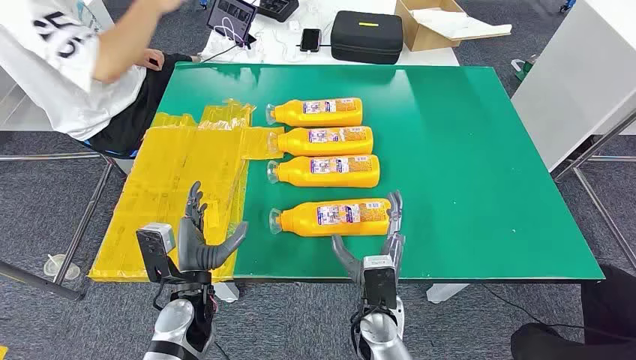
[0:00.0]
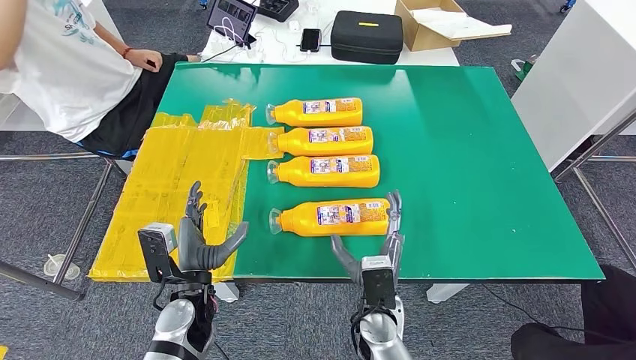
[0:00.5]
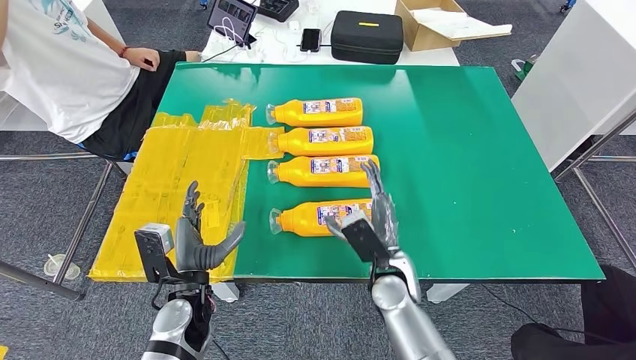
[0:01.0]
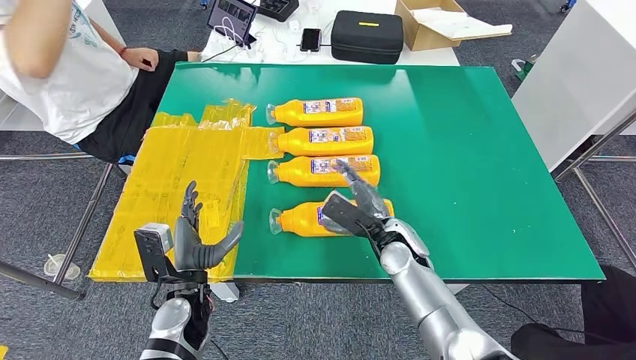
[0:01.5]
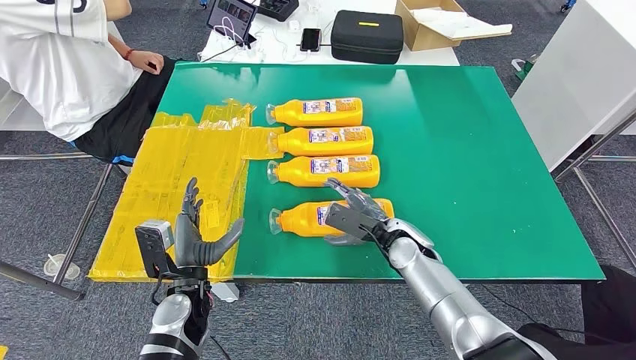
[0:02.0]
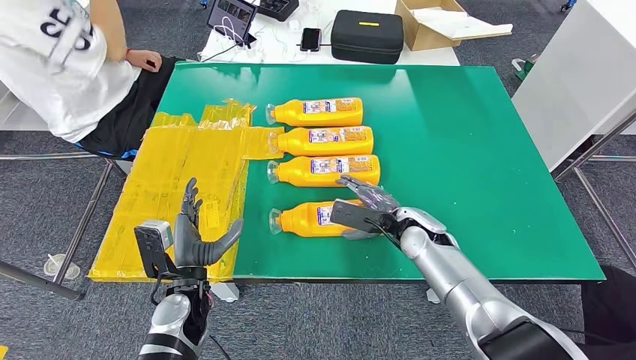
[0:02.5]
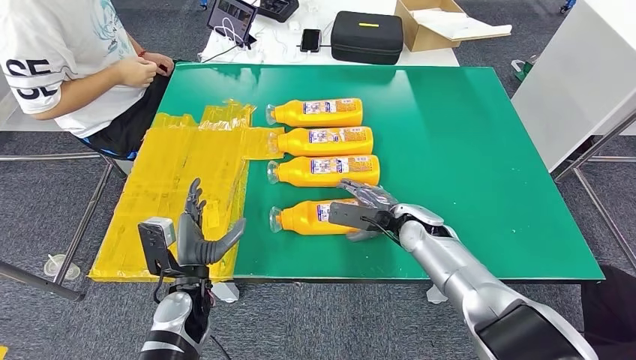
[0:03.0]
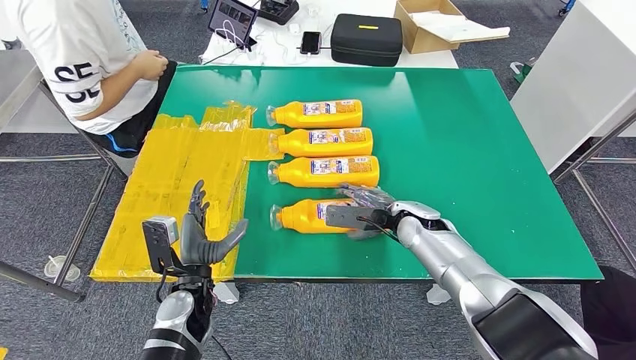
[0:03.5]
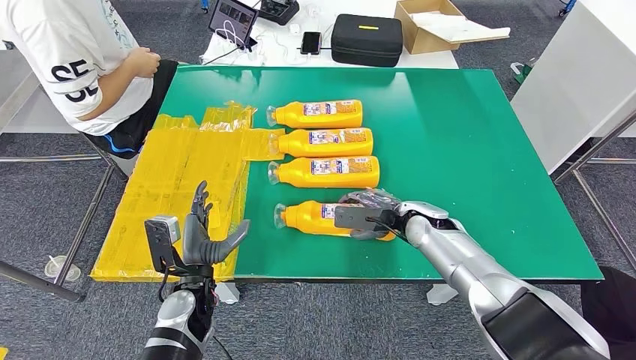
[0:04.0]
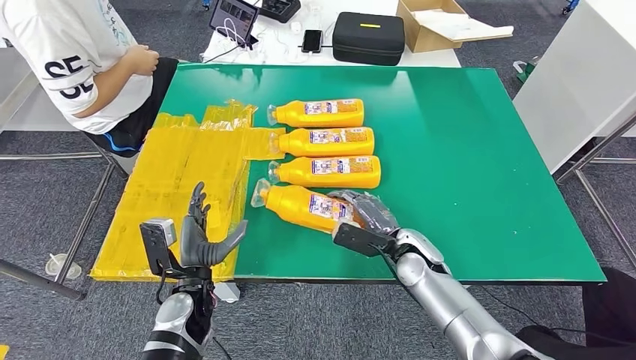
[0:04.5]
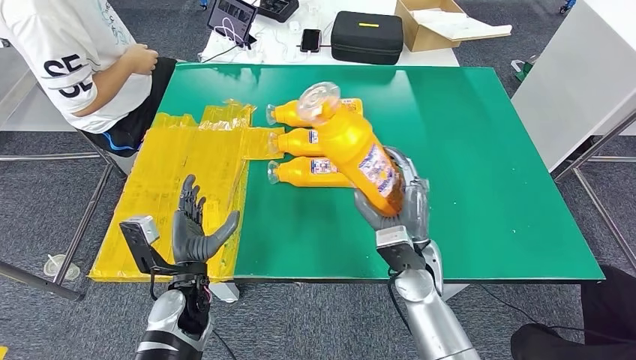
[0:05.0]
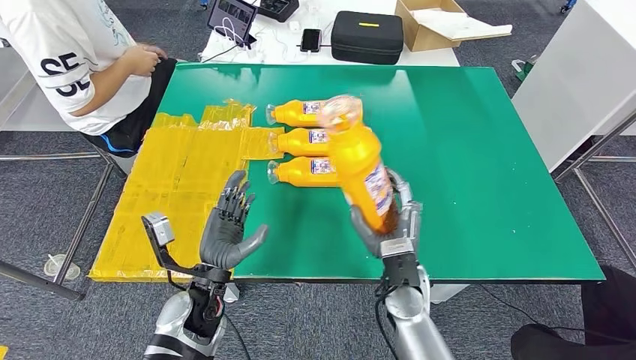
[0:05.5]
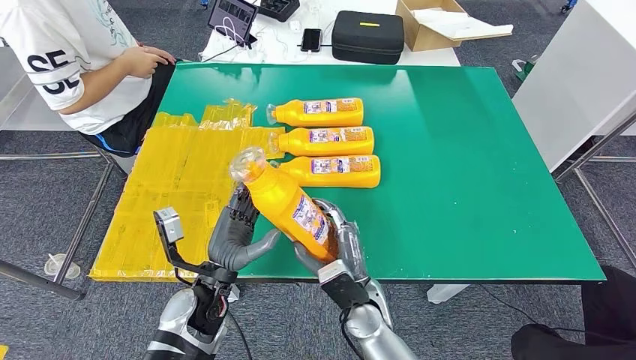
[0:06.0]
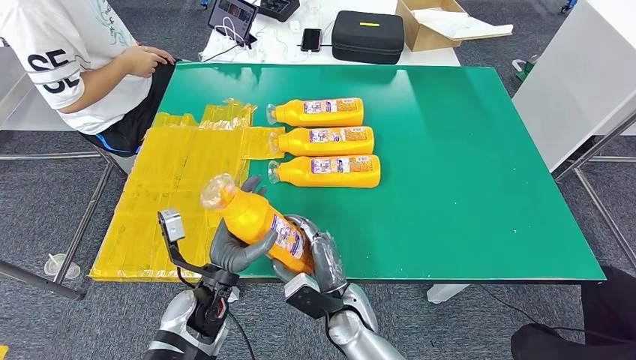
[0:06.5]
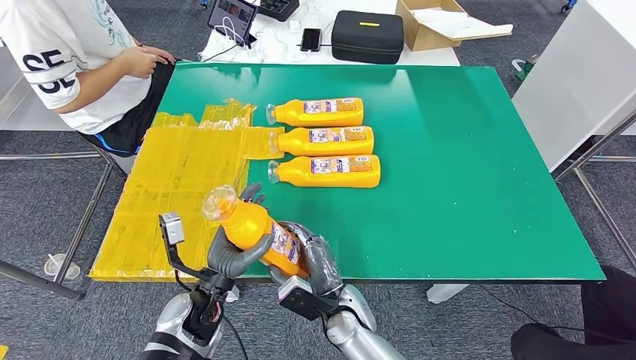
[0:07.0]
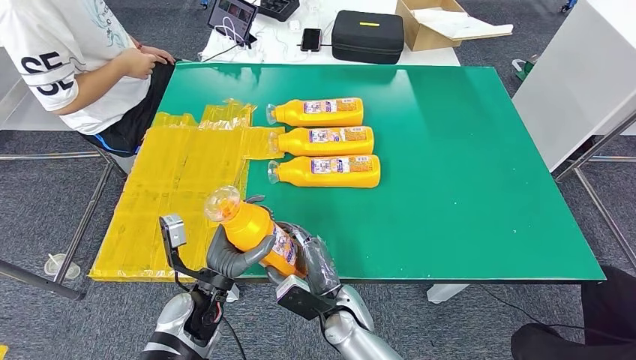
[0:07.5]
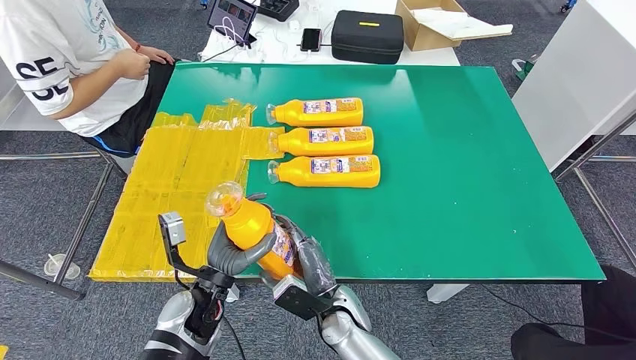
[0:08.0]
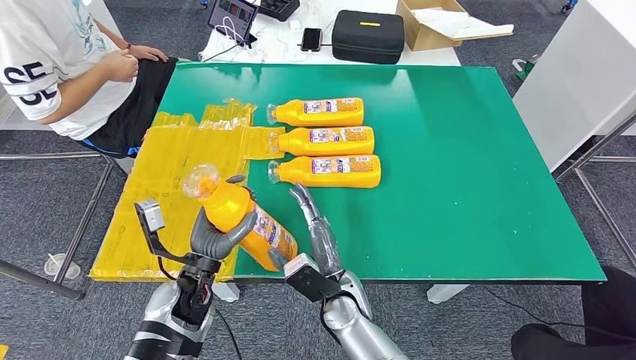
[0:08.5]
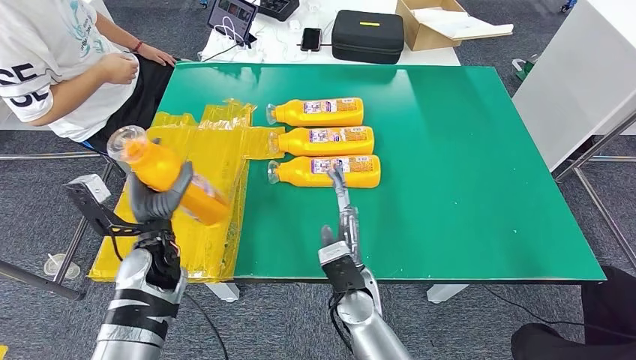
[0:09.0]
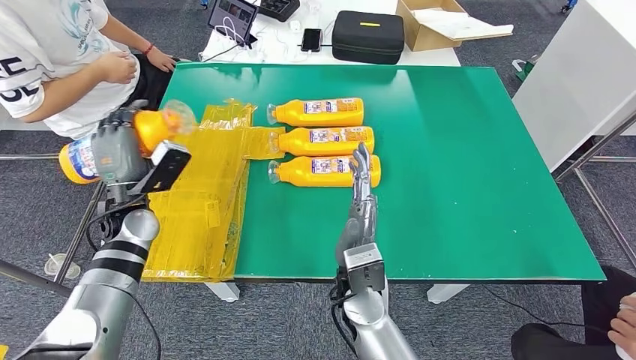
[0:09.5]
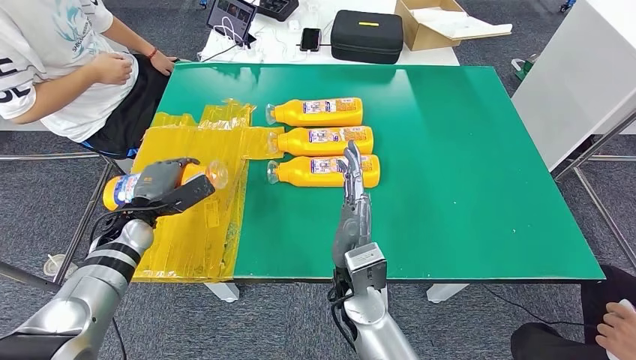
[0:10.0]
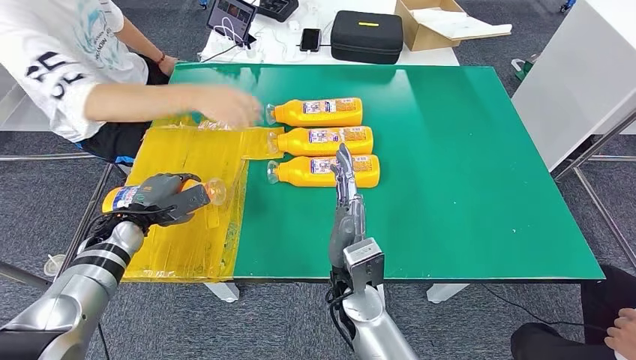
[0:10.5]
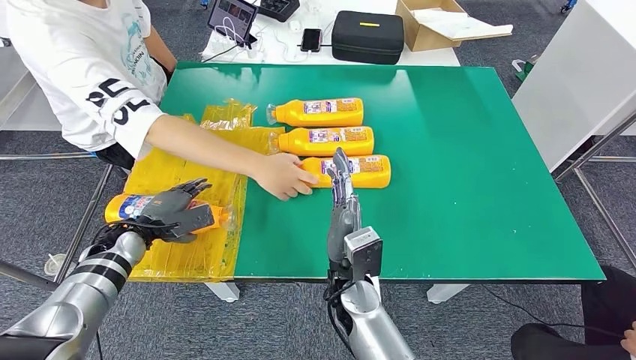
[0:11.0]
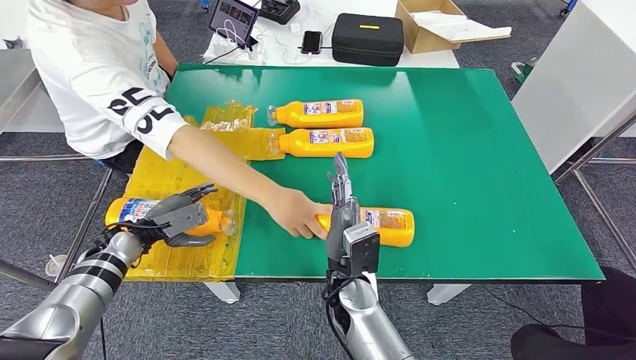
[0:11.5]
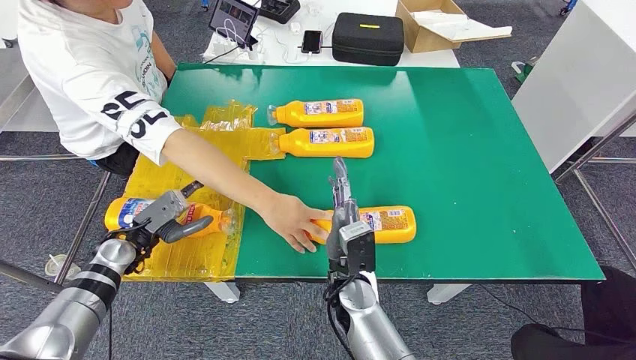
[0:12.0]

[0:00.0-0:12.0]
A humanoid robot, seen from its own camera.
Step, 0:00.0 to 0:06.0: Take the fast-moving consumer goods bottle from the table.
Step, 0:06.5 to 0:10.0: Flip the fast-moving consumer goods bottle to the front side.
0:06.0 to 0:08.0: The hands stay close to where they were, moving slightly.

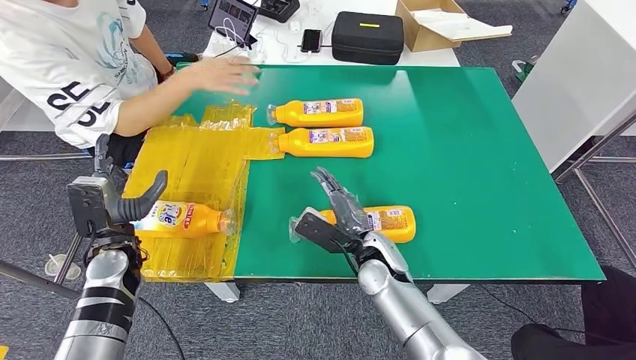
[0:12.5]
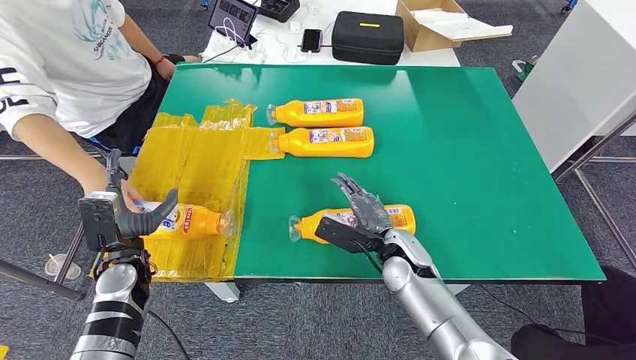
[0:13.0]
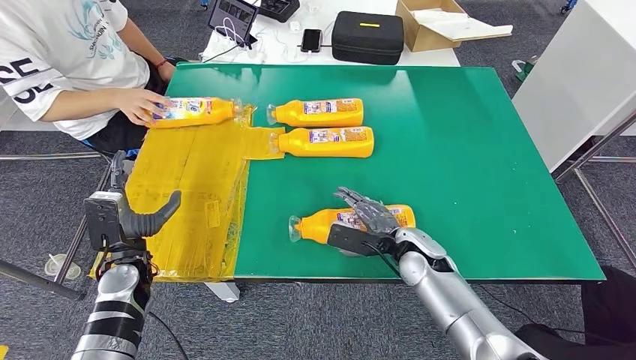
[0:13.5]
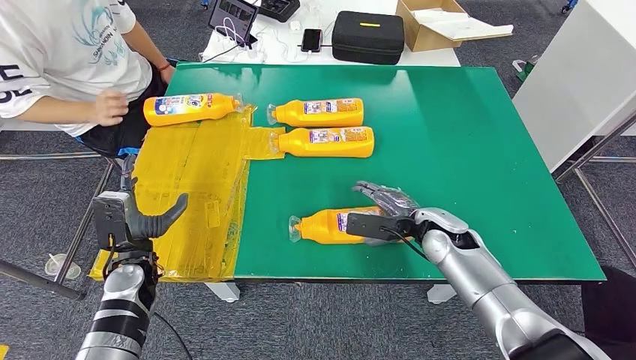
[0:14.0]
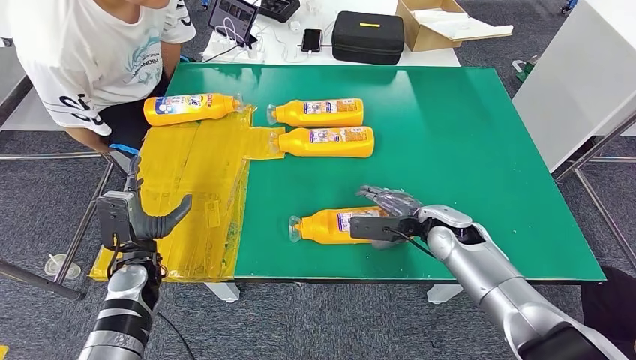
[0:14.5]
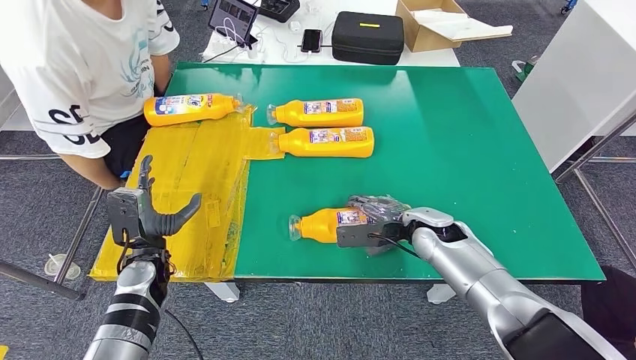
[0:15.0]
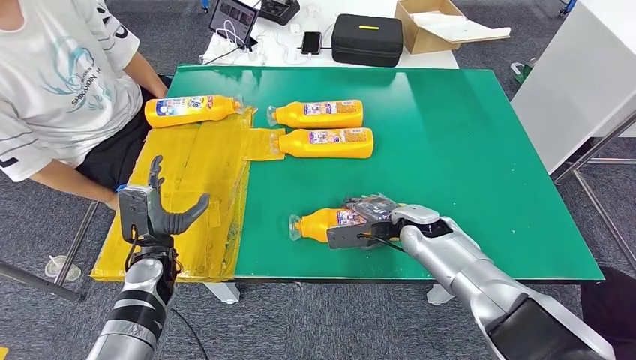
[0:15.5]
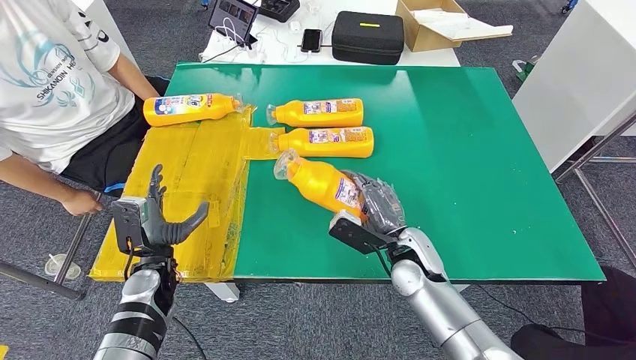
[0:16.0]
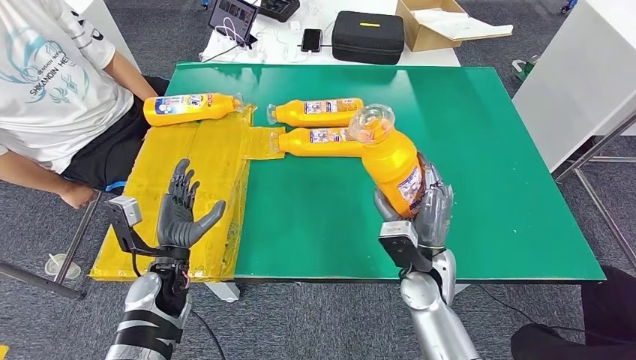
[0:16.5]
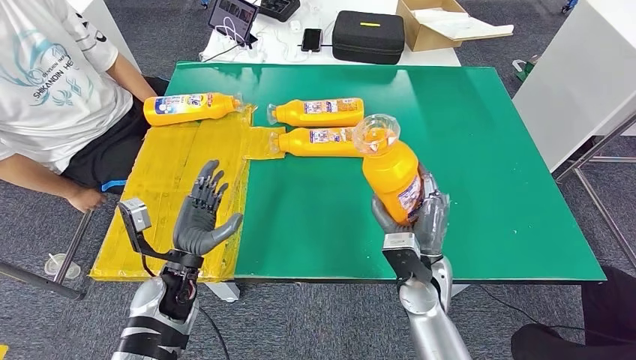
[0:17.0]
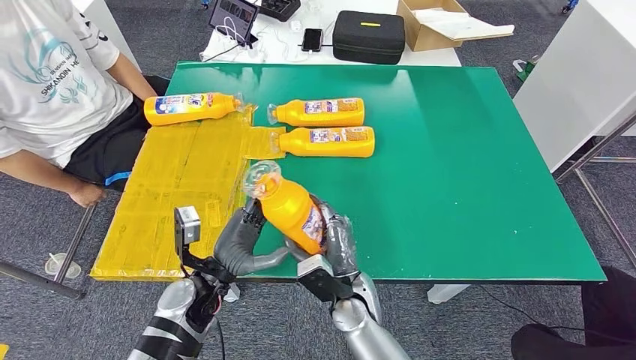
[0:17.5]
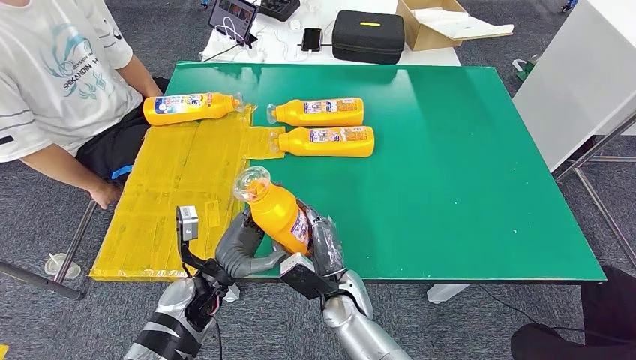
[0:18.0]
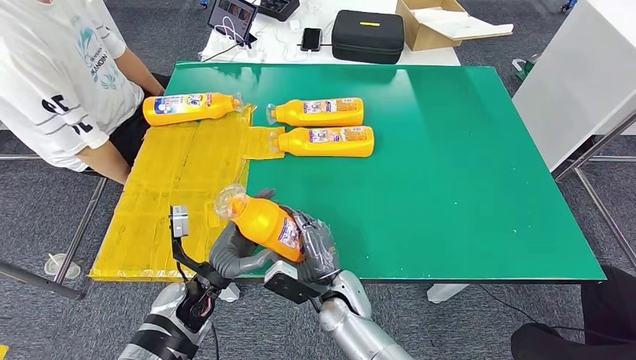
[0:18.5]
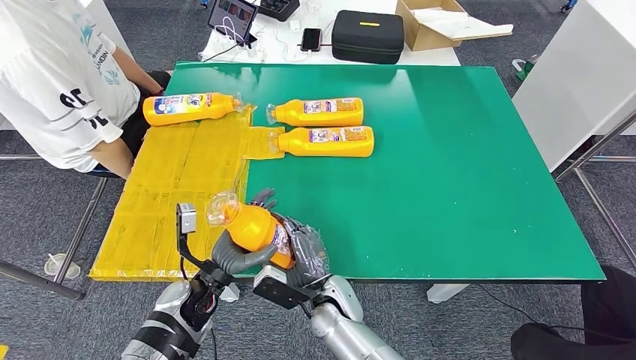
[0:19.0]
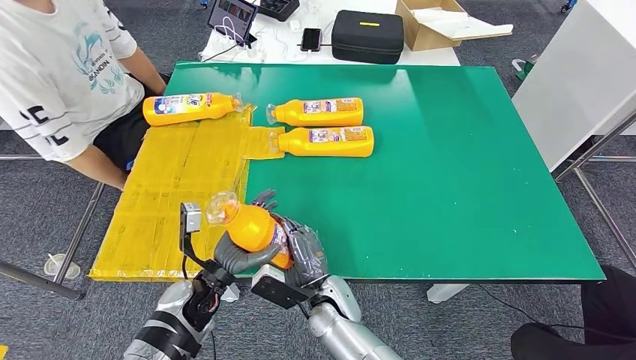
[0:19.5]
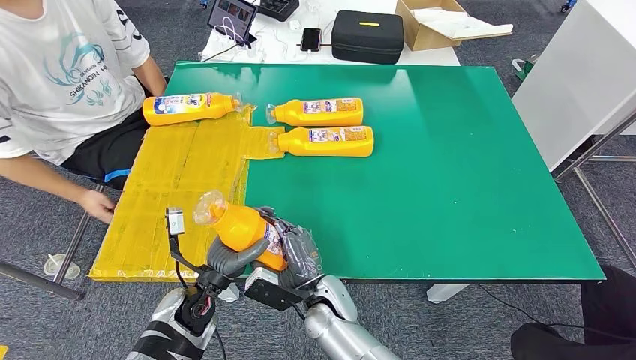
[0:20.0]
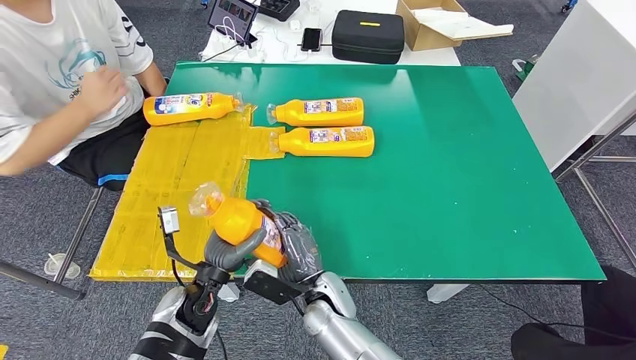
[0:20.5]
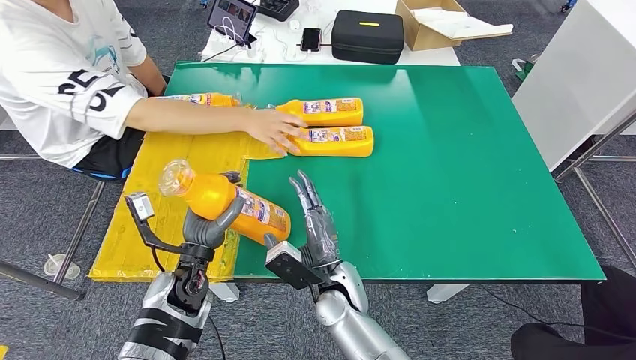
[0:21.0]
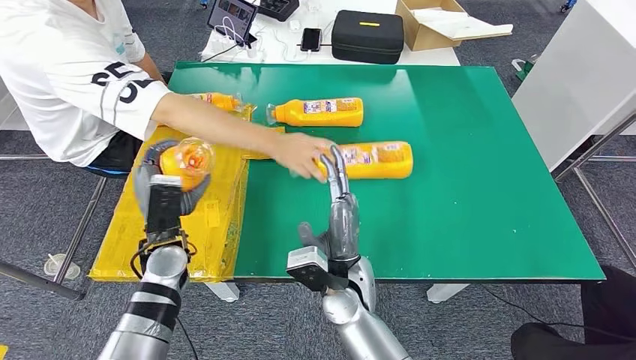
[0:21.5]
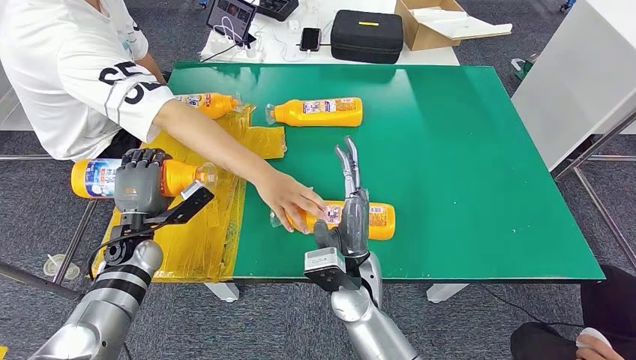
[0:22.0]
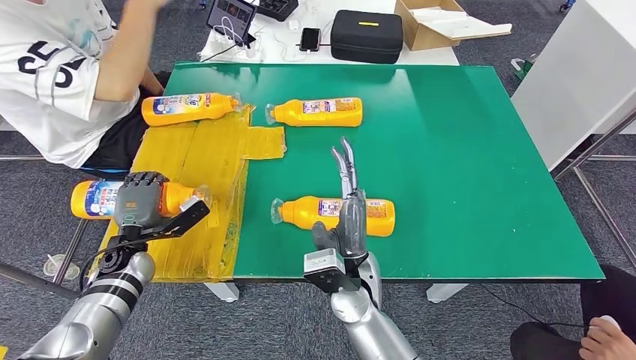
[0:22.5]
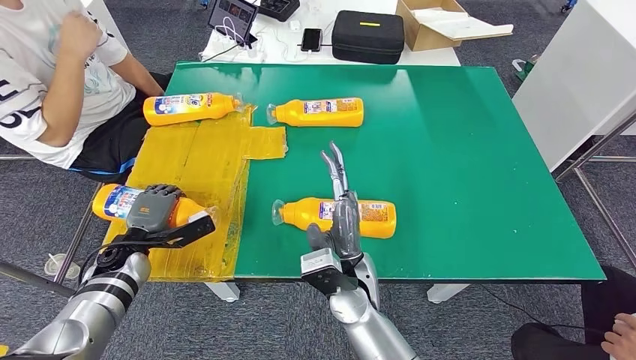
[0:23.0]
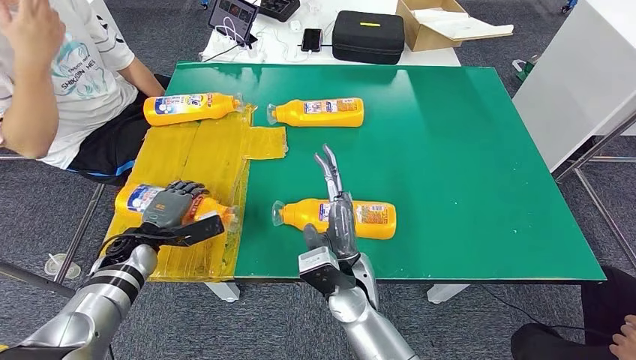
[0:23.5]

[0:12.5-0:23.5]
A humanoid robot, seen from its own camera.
Step, 0:12.5 to 0:16.5: Pick up the fast-moving consumer goods bottle from the table.
Step, 0:17.0 to 0:21.5: Flip the fast-moving consumer goods bottle to the front side.
